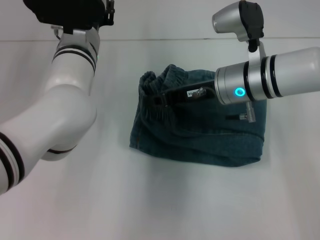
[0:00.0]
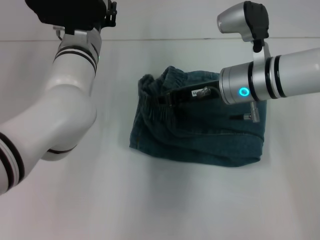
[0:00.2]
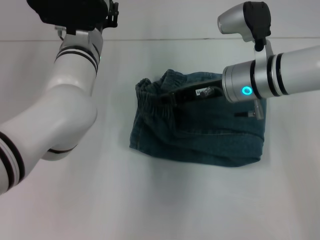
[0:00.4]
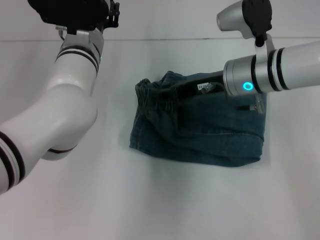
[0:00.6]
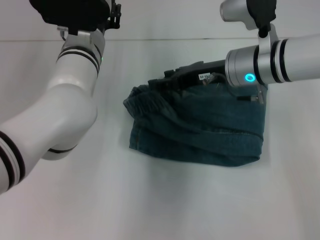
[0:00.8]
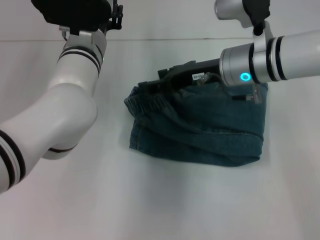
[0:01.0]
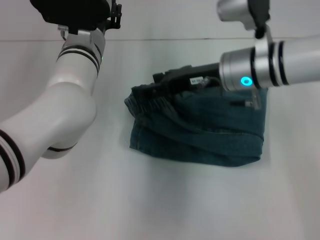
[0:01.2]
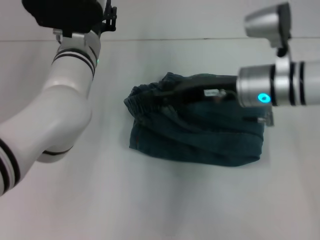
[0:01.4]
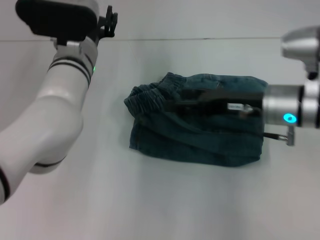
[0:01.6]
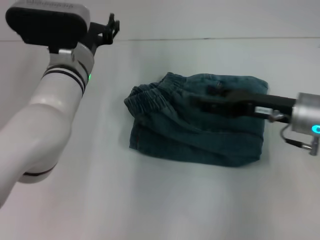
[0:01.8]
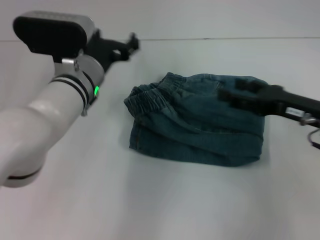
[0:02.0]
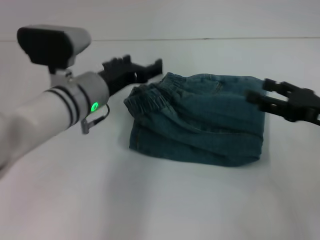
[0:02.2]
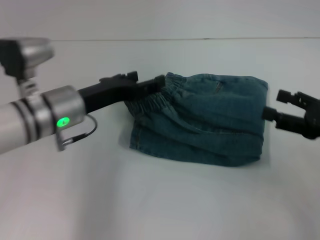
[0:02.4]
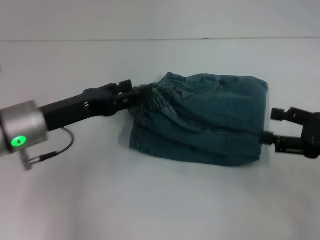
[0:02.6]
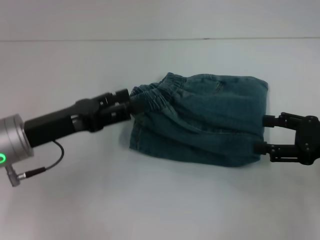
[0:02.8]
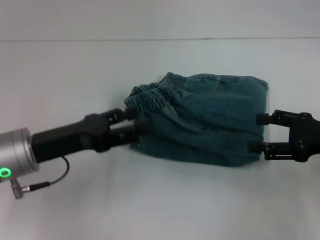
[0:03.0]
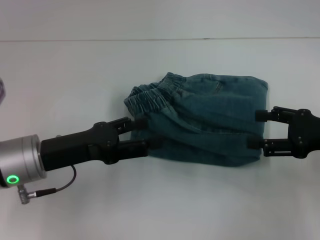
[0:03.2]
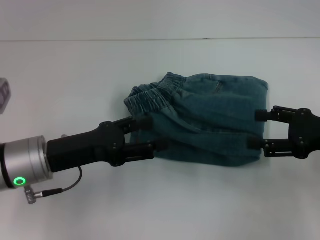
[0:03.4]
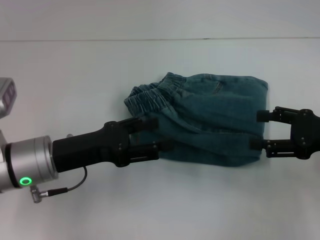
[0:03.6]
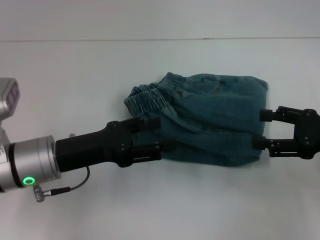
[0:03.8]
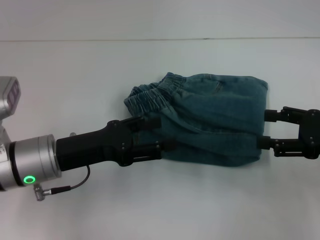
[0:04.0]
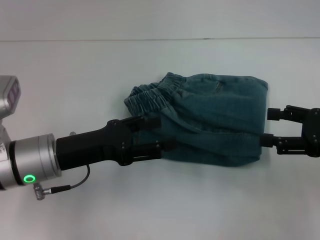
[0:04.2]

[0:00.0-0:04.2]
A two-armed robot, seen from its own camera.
0:00.0 to 0:01.4: The right gripper opens its fingers.
0:01.4 to 0:02.8: The left gripper goes some 15 cm backward and to the left, and opens. Meanwhile the right gripper is displaced to the right and backward by approximately 20 cm.
0:02.8 to 0:04.2: The grippers move only a little.

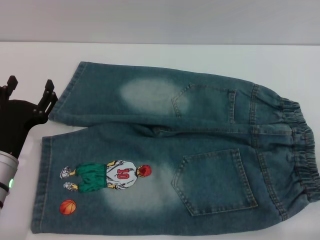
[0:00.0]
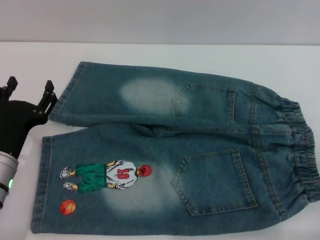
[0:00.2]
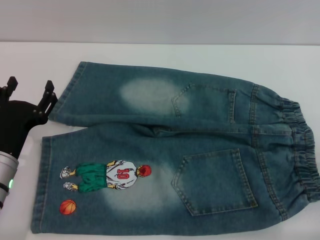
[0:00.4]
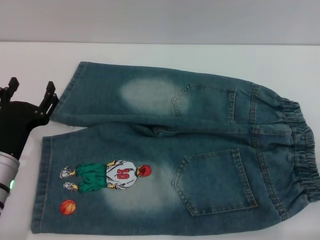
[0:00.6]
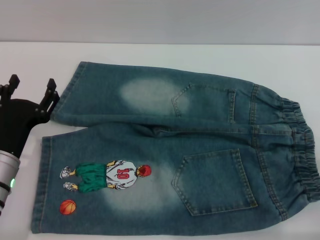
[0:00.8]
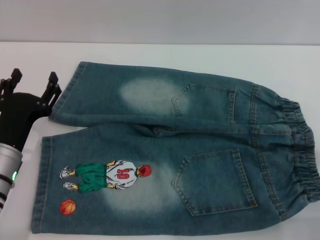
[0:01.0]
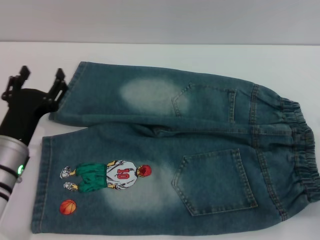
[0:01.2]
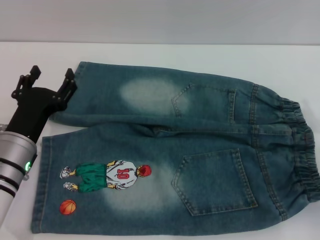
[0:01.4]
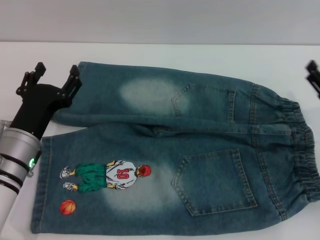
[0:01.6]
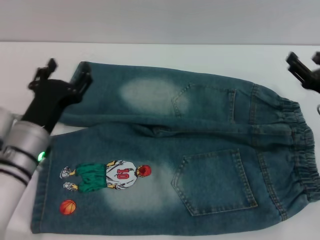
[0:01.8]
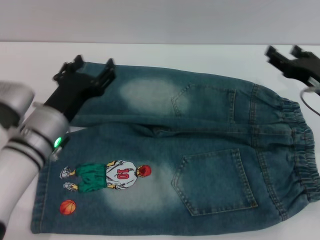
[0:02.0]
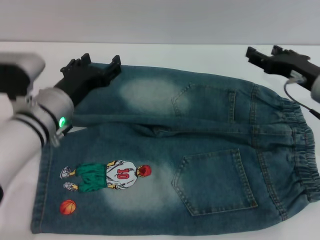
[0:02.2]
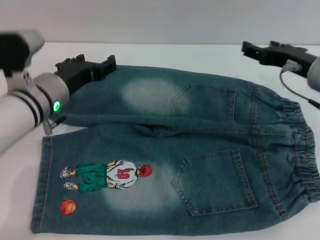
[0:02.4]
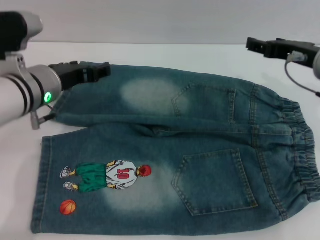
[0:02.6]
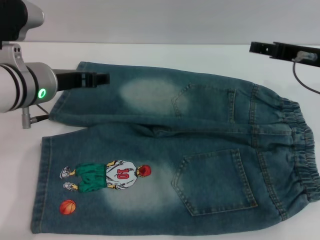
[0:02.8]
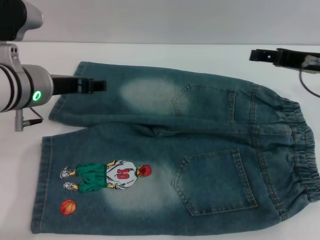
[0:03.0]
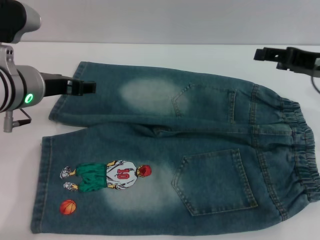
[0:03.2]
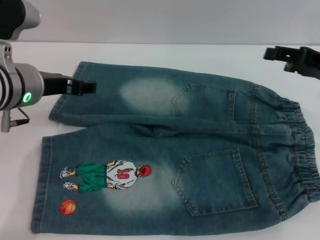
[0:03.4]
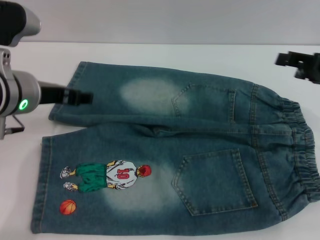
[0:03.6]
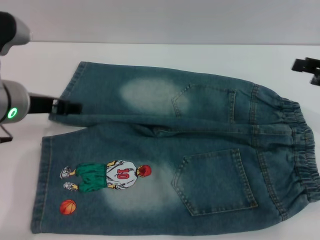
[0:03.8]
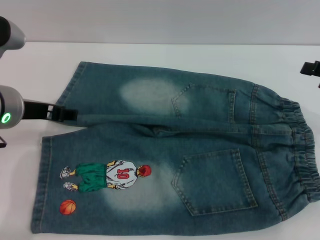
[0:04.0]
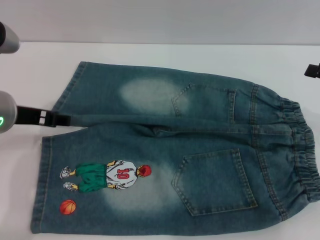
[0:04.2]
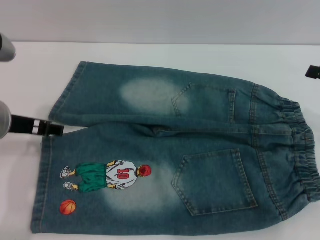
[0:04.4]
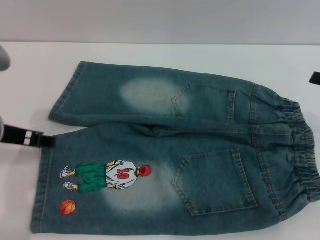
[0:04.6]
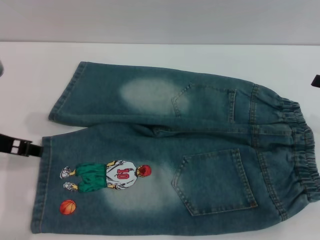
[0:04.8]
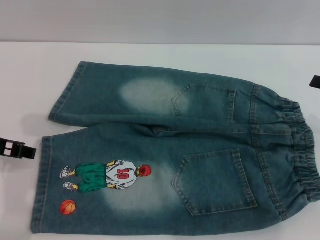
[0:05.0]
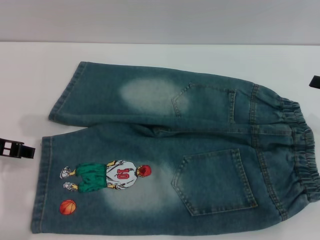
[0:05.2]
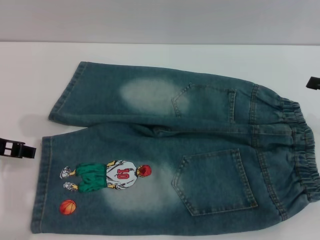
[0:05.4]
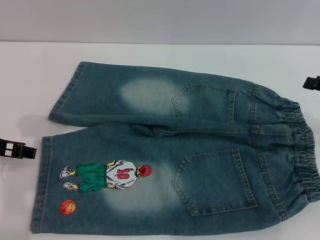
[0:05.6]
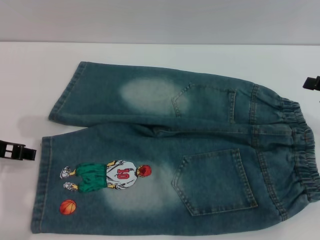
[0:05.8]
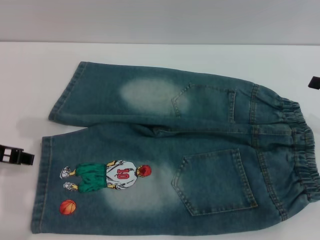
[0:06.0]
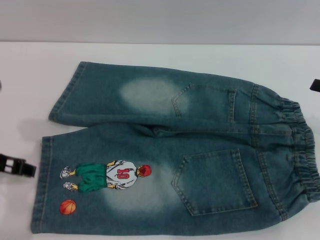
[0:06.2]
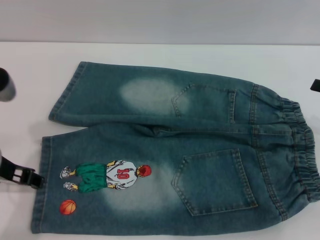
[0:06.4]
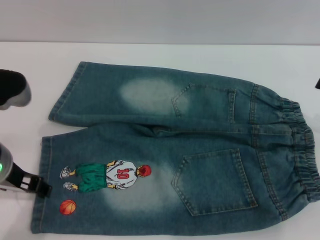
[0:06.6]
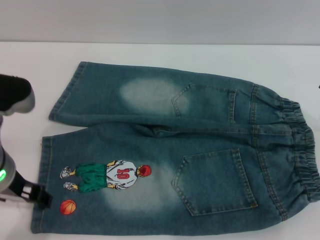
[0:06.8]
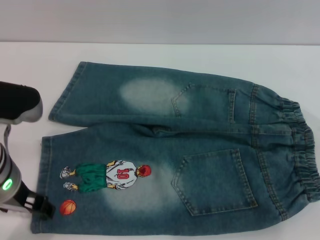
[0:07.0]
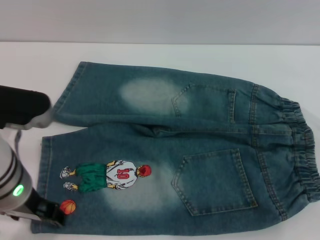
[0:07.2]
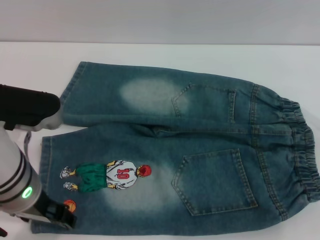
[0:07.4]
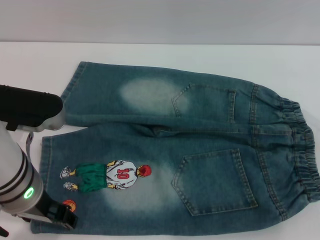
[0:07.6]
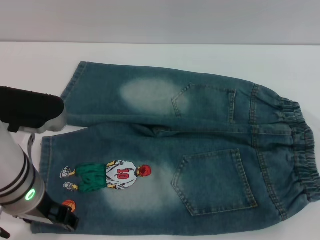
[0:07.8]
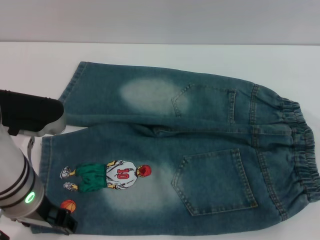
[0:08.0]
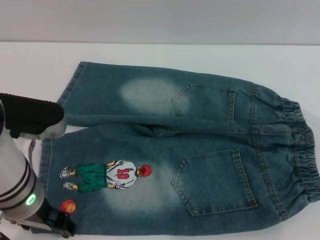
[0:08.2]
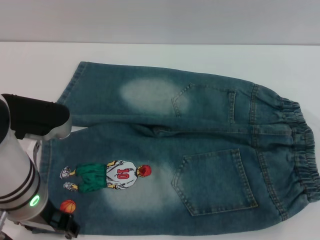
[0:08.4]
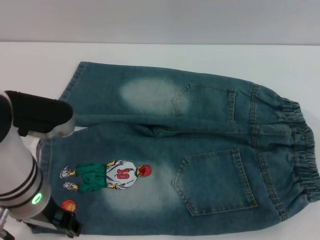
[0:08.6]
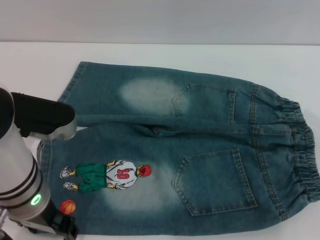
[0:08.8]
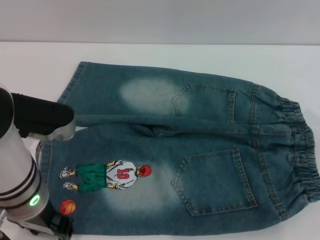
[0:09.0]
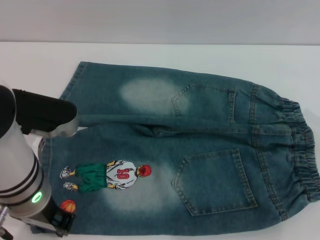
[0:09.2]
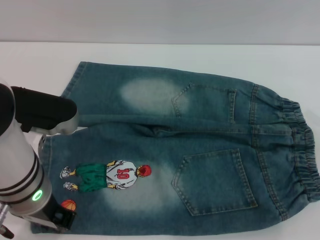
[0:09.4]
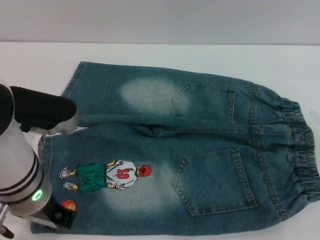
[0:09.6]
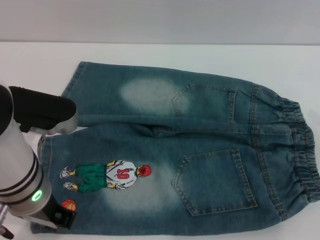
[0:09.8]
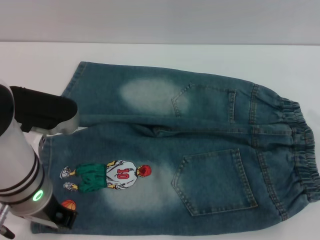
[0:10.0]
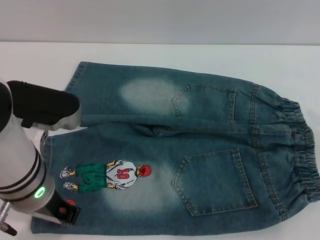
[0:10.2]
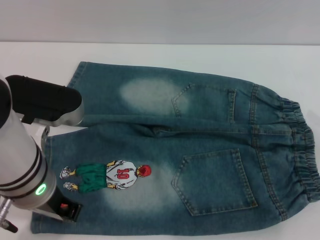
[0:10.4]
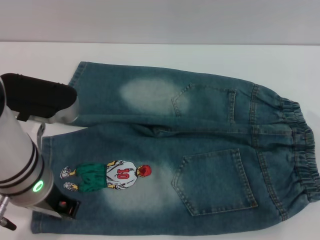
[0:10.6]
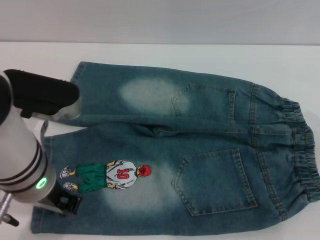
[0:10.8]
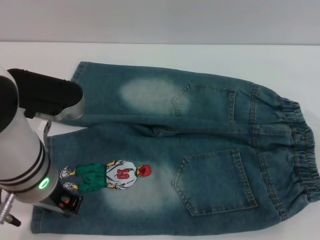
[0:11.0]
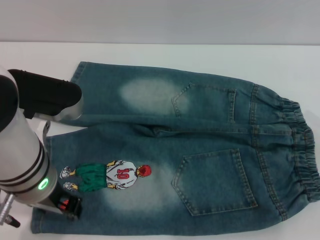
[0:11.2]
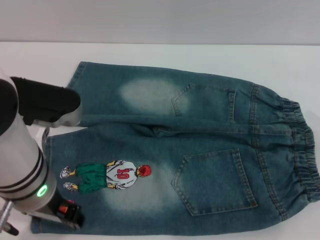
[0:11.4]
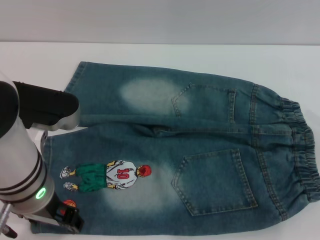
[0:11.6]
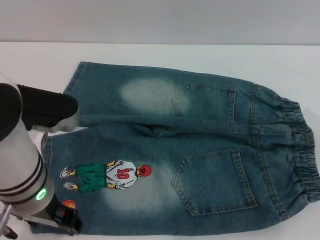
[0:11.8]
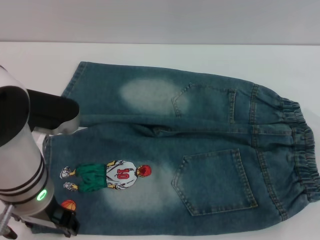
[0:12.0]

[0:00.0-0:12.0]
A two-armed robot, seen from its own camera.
0:00.0 to 0:01.6: The right gripper heads forward, covering approximately 10 cm.
0:01.6 to 0:03.0: The right gripper shifts roughly 15 cm upward, forward and to the left. The left gripper moves upward and forward, some 15 cm.
0:03.0 to 0:04.4: The right gripper travels to the right and backward by about 10 cm. The left gripper changes place by approximately 5 cm.
0:04.4 to 0:06.0: The grippers stay close to where they were, moving slightly.
0:06.0 to 0:07.6: The left gripper travels to the right by roughly 10 cm.
0:07.6 to 0:09.0: The grippers stay close to where they were, moving slightly.
0:09.0 to 0:10.4: The left gripper closes up.
0:10.4 to 0:12.0: The left gripper opens its fingers.

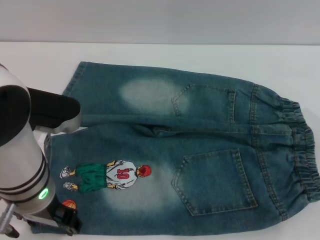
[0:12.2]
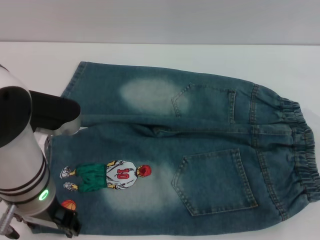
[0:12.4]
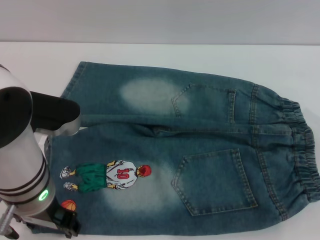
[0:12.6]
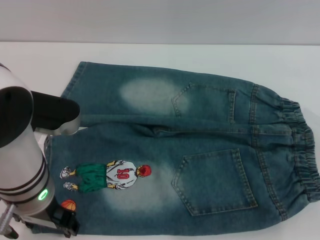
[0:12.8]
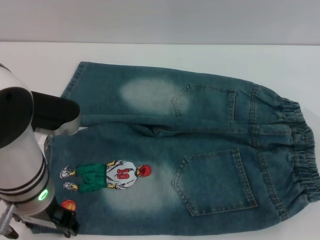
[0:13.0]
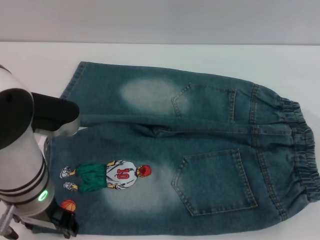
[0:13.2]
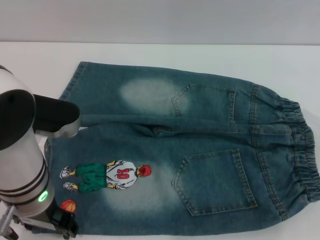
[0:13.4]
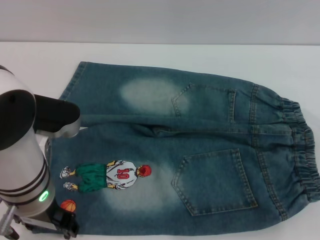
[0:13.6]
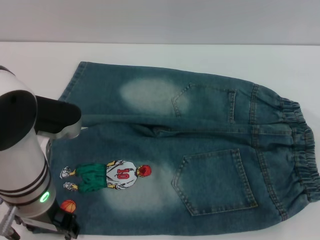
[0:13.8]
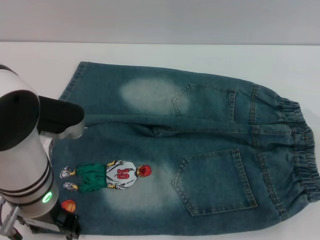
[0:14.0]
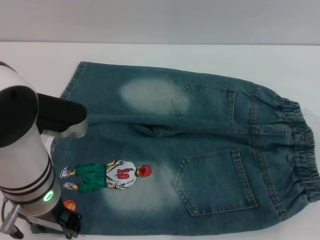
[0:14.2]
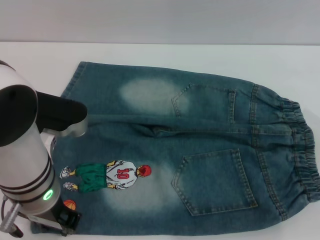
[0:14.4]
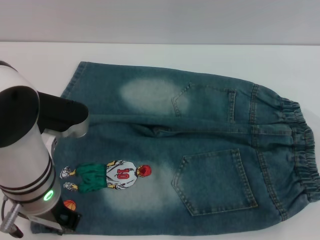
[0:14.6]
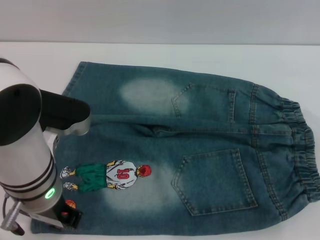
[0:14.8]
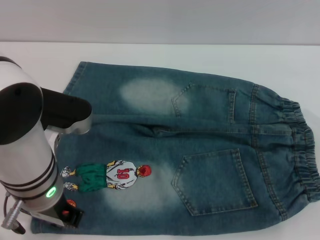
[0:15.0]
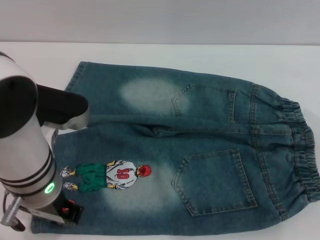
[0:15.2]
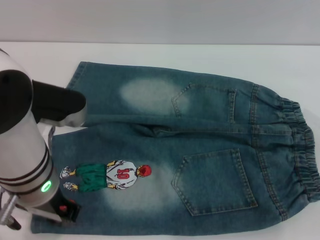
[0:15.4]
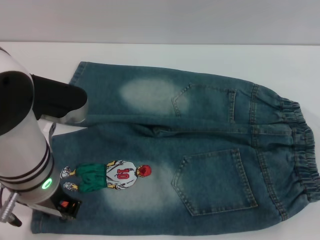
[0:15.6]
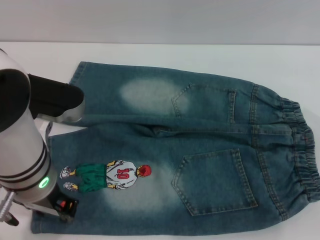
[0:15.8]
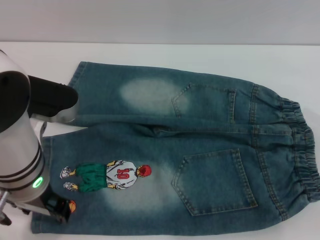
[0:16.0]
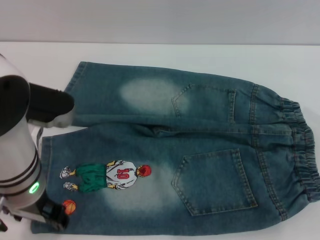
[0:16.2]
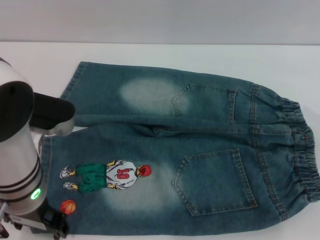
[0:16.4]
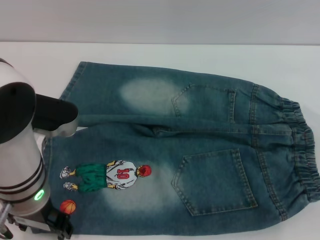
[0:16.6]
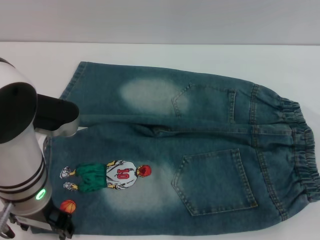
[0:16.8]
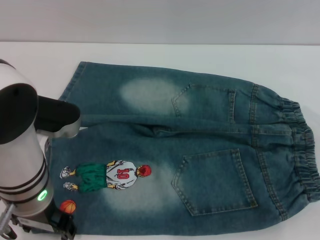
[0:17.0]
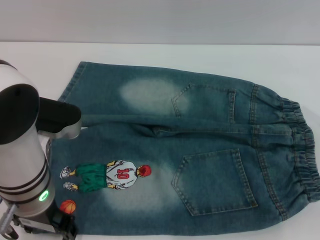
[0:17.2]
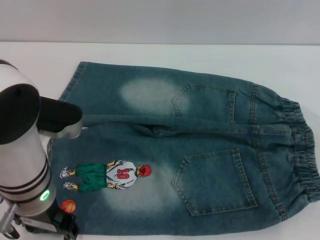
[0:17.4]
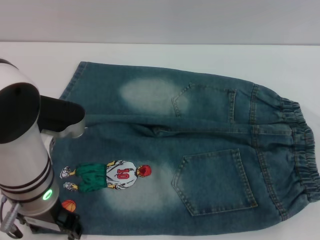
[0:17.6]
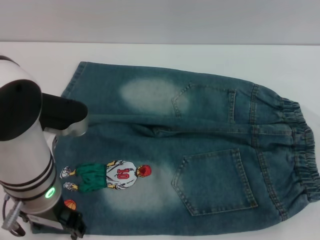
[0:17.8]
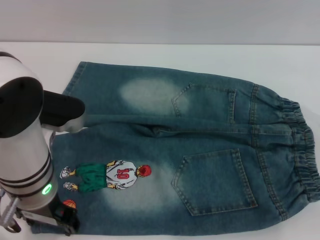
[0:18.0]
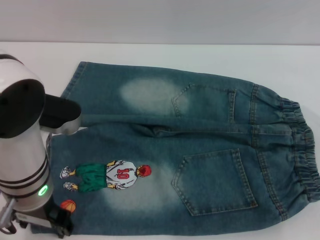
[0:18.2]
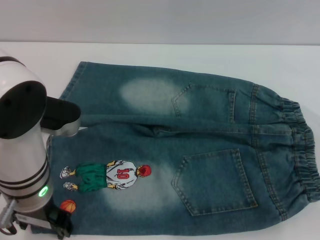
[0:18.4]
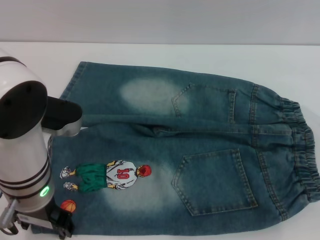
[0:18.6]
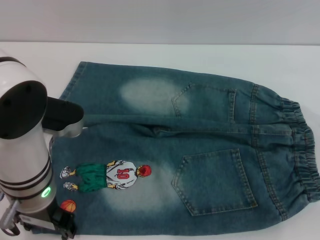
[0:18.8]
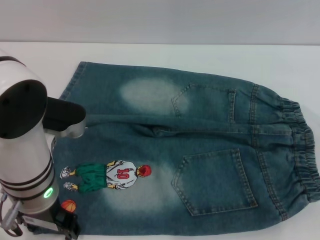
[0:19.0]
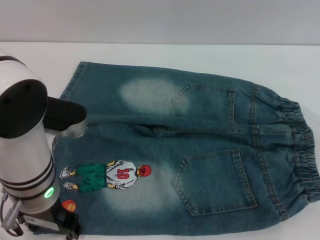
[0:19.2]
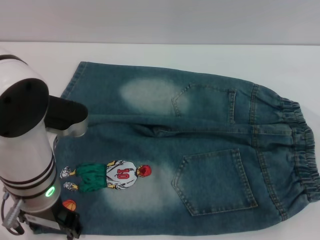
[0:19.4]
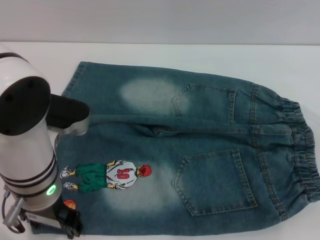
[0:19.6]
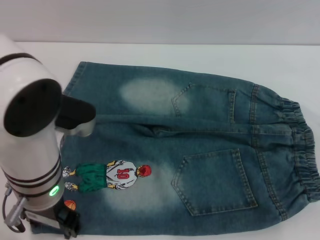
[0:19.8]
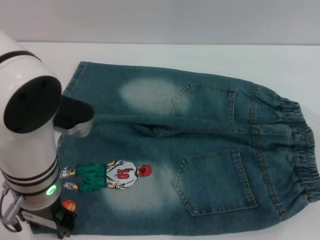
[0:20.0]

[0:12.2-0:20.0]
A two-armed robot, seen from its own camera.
0:12.2 to 0:13.8: Neither gripper changes place.
0:13.8 to 0:15.4: The left gripper closes its fingers.
0:15.4 to 0:16.8: The left gripper opens up.
0:16.8 to 0:18.4: Both grippers stay put.
0:18.4 to 0:20.0: The two grippers keep their place.
